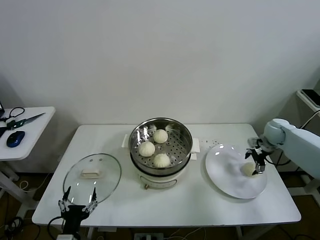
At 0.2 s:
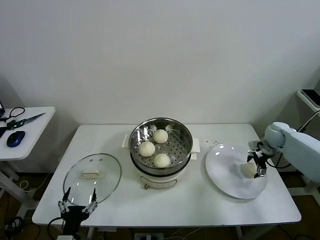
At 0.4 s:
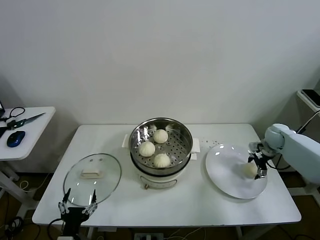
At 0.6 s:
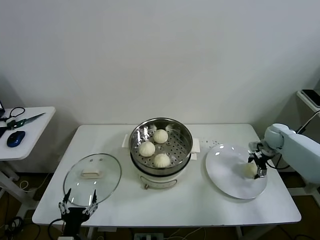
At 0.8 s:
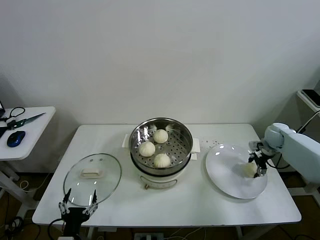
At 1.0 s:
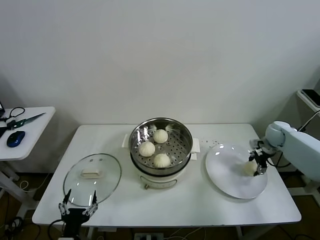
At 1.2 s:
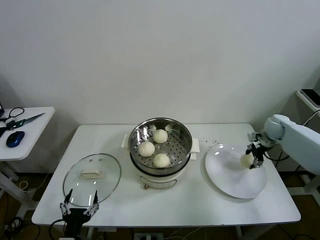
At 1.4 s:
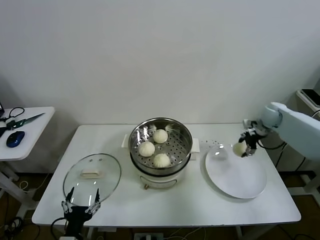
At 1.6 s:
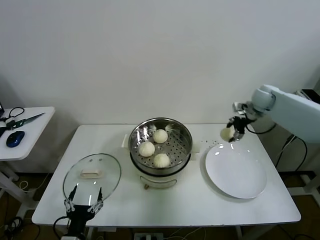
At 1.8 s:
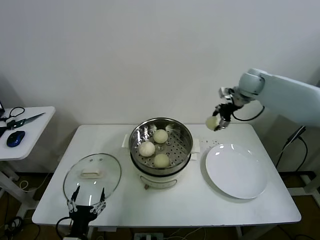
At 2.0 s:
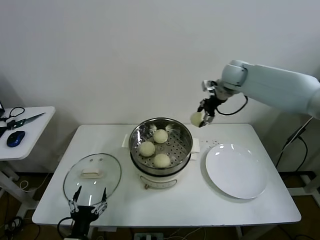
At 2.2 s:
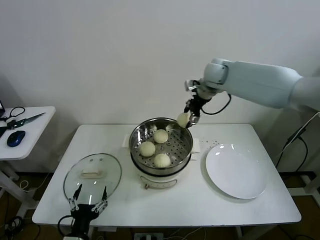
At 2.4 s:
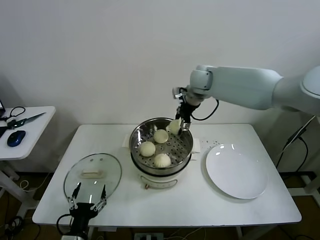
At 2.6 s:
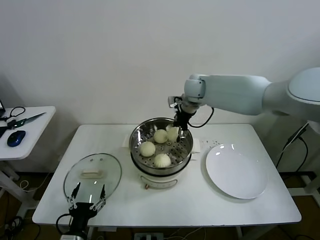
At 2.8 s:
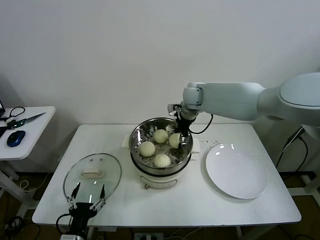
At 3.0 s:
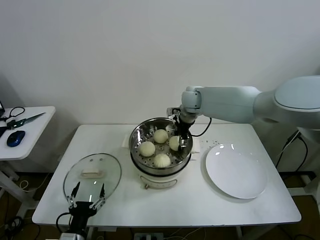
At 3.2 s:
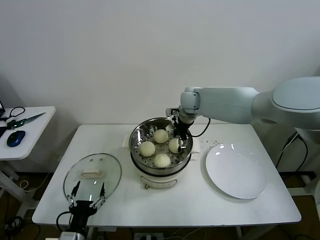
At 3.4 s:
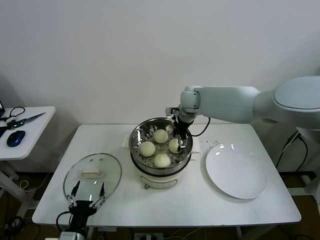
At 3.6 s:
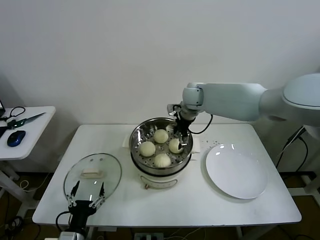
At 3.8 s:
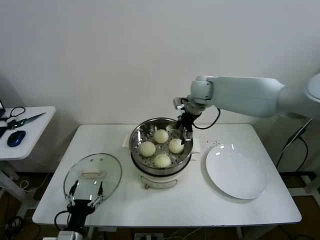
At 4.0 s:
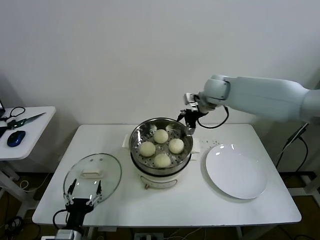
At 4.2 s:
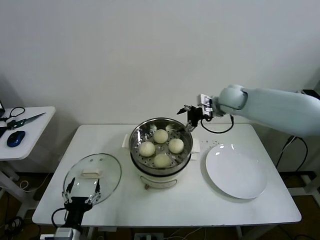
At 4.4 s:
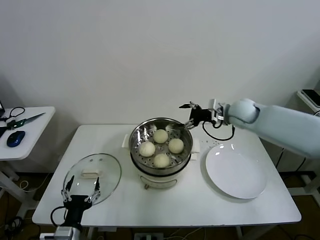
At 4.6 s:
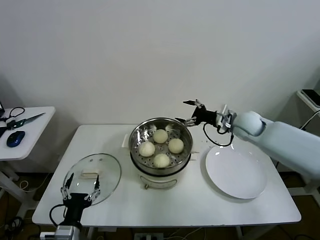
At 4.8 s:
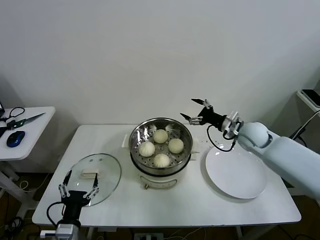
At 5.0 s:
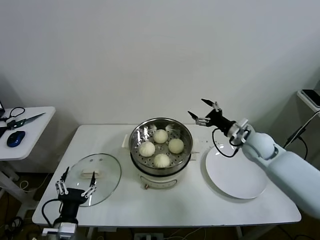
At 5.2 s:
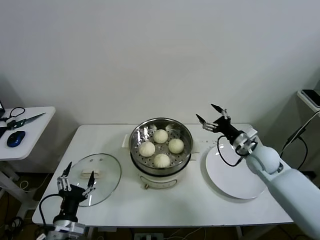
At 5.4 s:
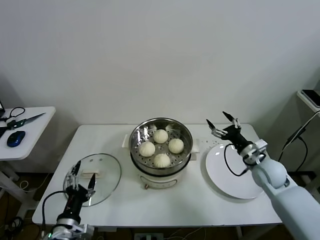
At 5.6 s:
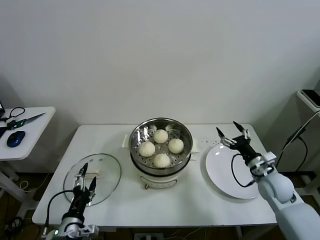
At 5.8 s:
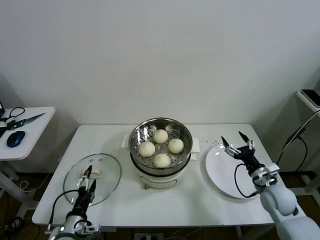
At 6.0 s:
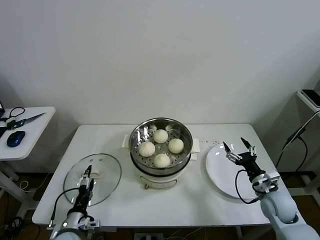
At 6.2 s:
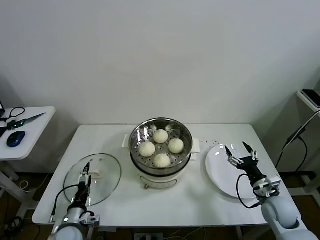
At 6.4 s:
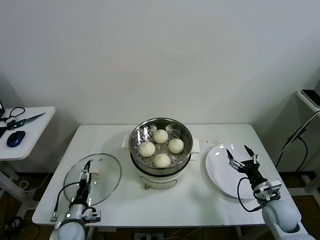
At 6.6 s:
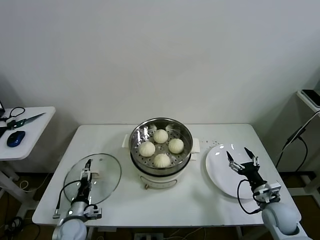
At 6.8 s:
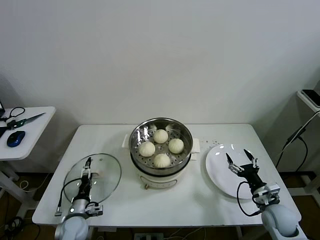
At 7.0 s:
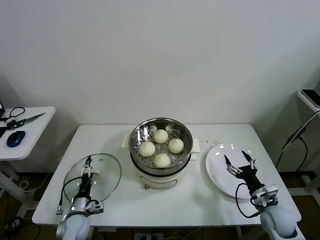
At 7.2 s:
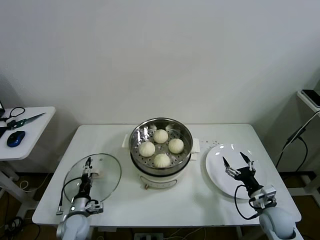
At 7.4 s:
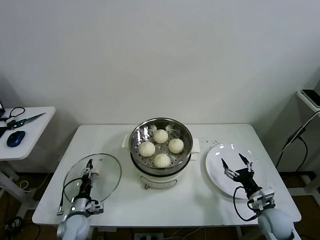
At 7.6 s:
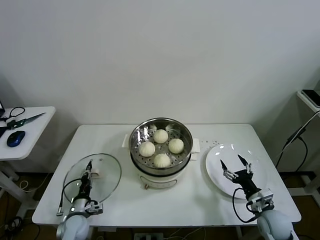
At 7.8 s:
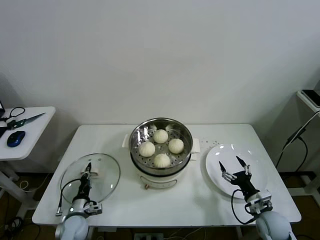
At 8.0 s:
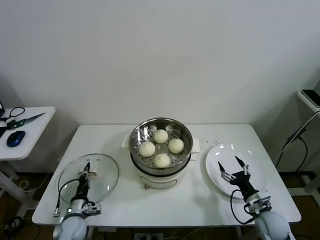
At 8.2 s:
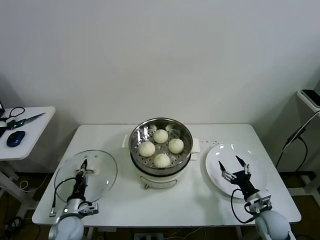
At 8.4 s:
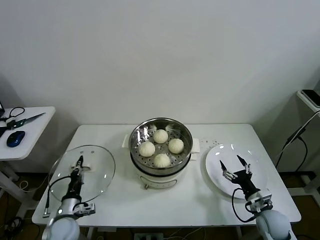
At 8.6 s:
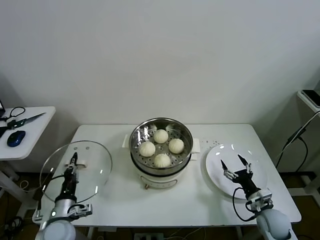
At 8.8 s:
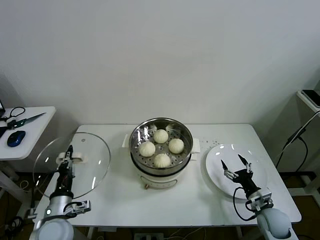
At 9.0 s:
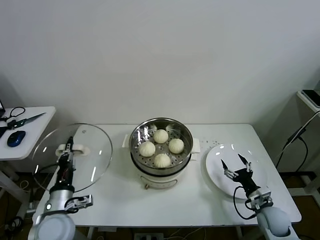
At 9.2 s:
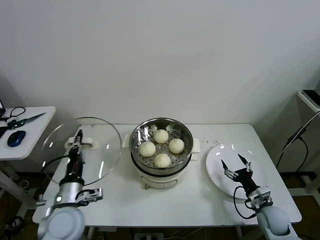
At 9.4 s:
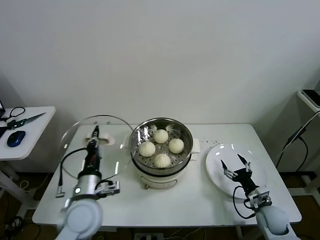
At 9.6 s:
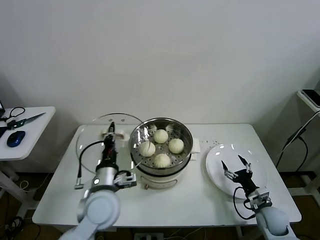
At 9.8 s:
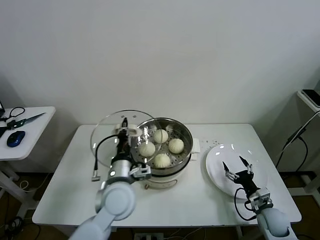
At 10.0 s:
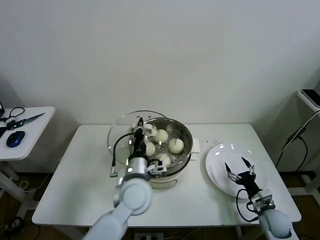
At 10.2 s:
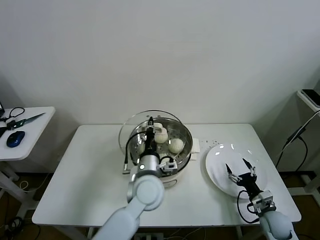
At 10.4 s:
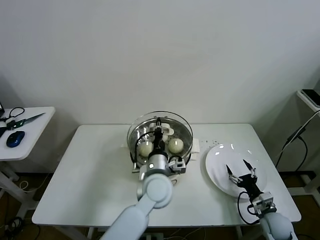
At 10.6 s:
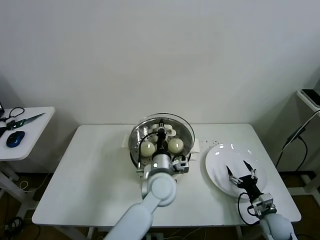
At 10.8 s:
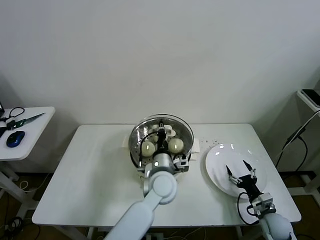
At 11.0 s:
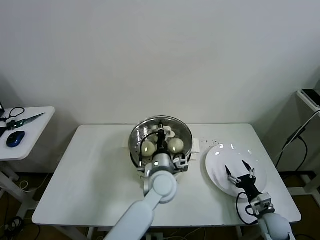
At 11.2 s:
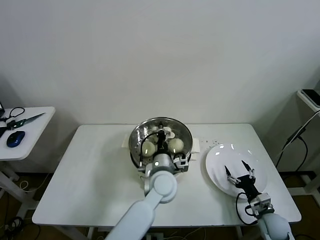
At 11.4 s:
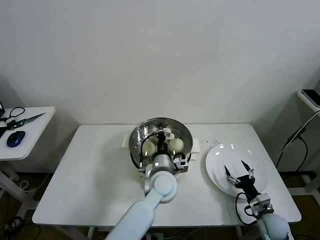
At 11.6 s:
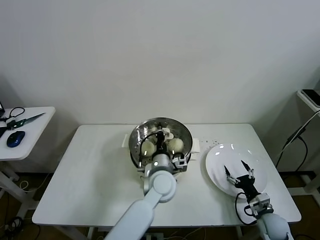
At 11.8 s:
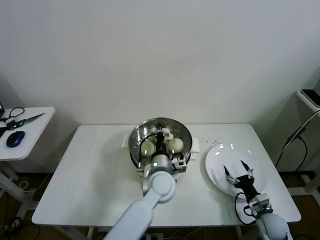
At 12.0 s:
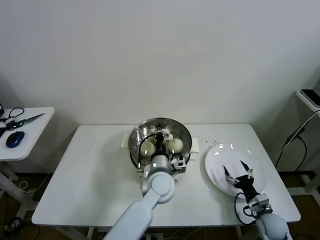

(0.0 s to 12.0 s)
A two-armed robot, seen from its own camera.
Task of the whole recording: take steamed baozi put them in steamer then cover it.
Step, 1.0 s - 3.4 s: Place the baozi on the steamer with right gripper.
Step, 3.6 s - 7.6 s: Grasp the pot lid with left gripper.
0.0 s - 1.6 s: The right gripper shifts roughly 15 cm upward, to the left and forward, and closes up.
1.6 s - 3.0 s: The right gripper heads to the left, covering about 25 cm.
3.0 s - 4.4 s: The right gripper is displaced to the right and backward by approximately 15 cm, and opens up.
4.4 s - 6.0 s: The left gripper shifts approximately 5 cm forward. The right gripper moves backward, downward and to the right, some 35 cm.
6.0 s - 7.6 s: The left gripper shifts roughly 10 cm downward and forward, and closes up. The right gripper goes some 5 cm downward.
7.6 s - 9.0 s: The left gripper is displaced upward by approximately 20 cm.
9.0 s - 10.4 s: The left gripper is displaced to the right by some 25 cm.
10.4 s - 12.0 s: The left gripper shifts by some 5 cm.

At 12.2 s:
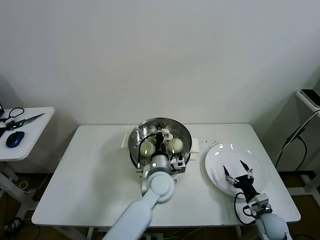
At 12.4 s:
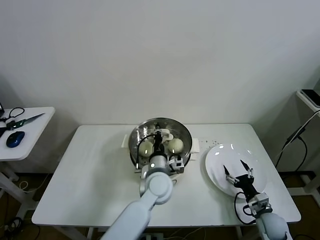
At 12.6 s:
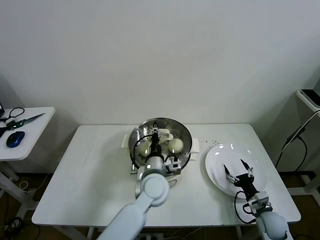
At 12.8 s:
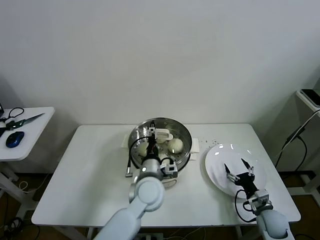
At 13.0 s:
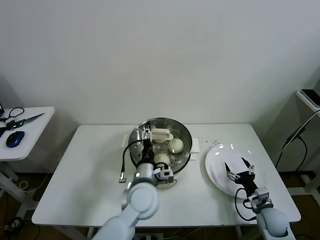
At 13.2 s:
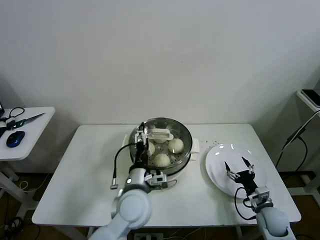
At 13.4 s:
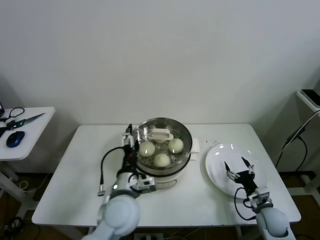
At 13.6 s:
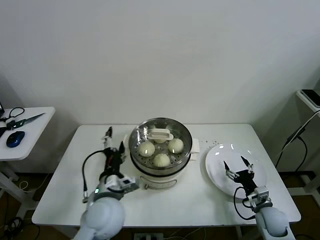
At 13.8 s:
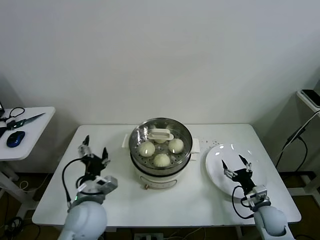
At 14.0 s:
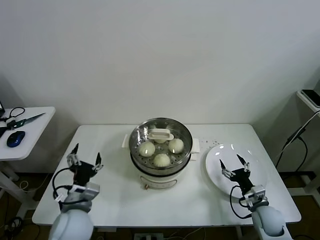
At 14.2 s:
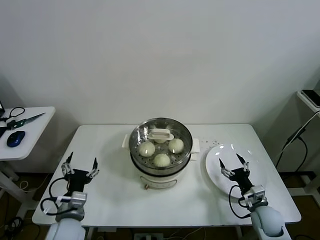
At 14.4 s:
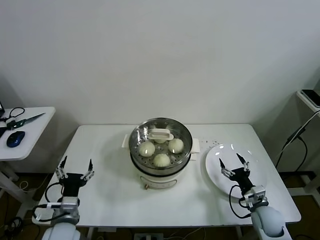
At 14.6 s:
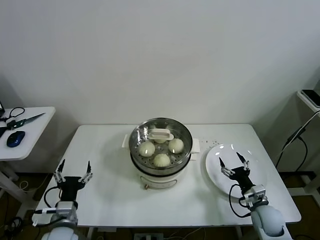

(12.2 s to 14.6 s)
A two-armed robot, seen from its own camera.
Task of the whole recording: take steamed baozi put them in steamer then cover it.
12.2 s - 13.4 s: The left gripper is displaced to the left and backward by approximately 10 cm, and opens its fingers.
13.4 s - 14.6 s: The left gripper moves to the left and downward, approximately 20 cm.

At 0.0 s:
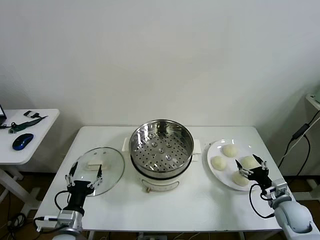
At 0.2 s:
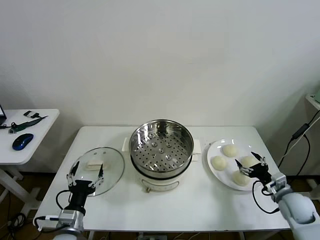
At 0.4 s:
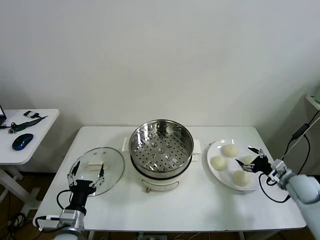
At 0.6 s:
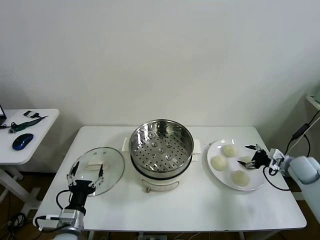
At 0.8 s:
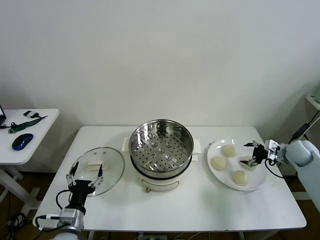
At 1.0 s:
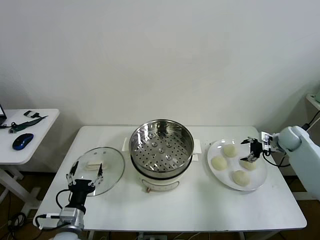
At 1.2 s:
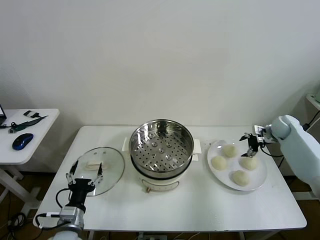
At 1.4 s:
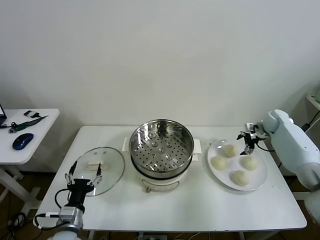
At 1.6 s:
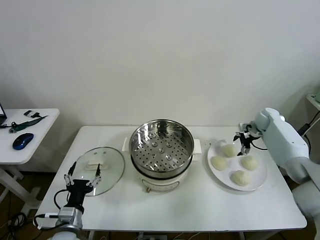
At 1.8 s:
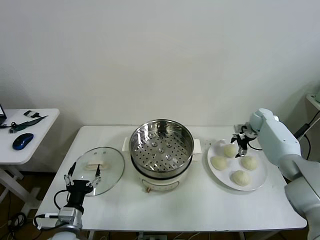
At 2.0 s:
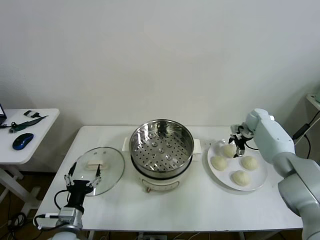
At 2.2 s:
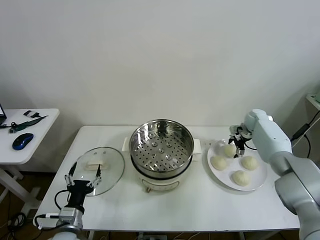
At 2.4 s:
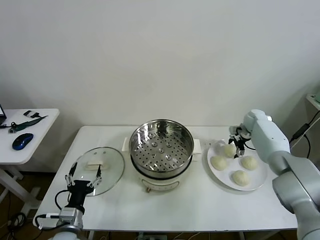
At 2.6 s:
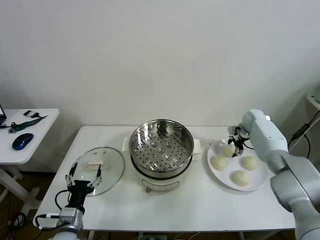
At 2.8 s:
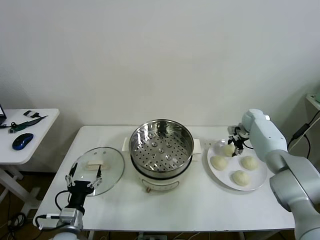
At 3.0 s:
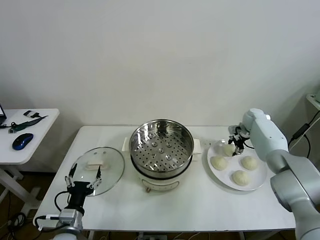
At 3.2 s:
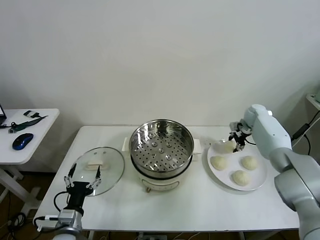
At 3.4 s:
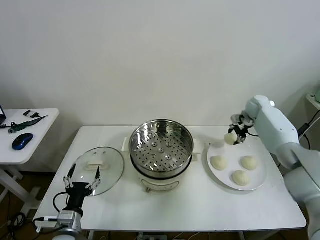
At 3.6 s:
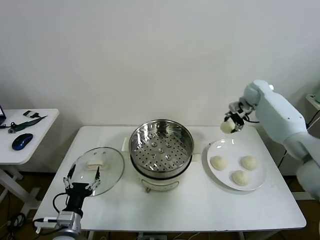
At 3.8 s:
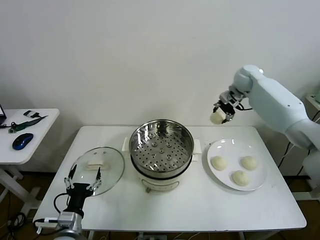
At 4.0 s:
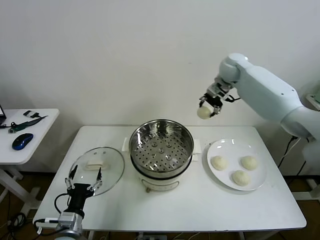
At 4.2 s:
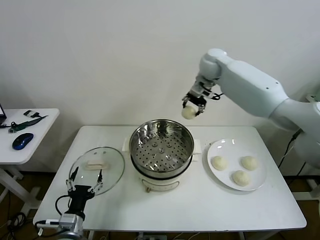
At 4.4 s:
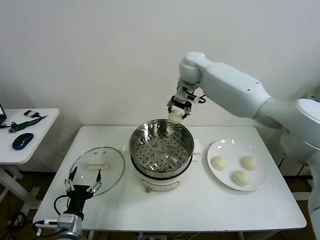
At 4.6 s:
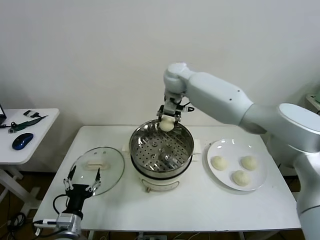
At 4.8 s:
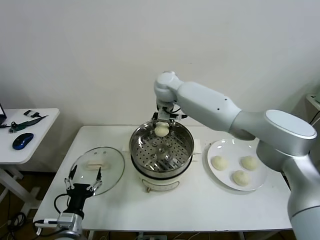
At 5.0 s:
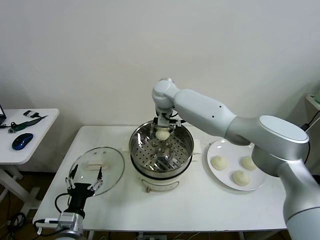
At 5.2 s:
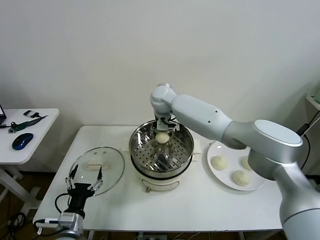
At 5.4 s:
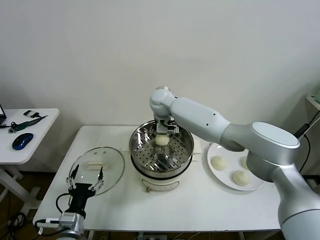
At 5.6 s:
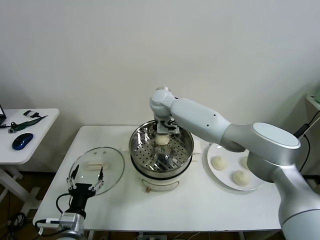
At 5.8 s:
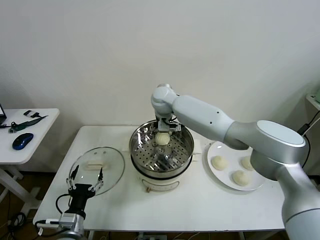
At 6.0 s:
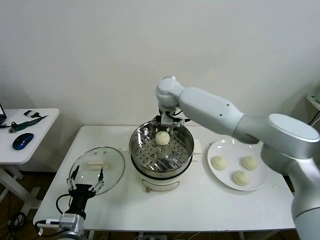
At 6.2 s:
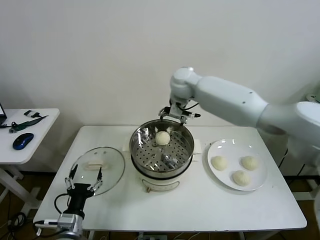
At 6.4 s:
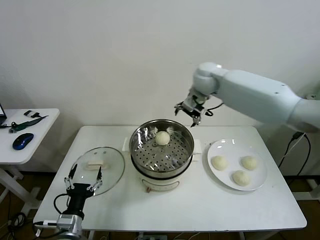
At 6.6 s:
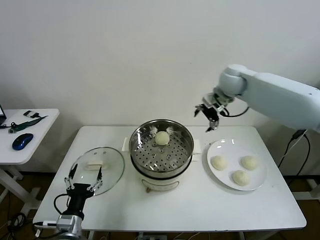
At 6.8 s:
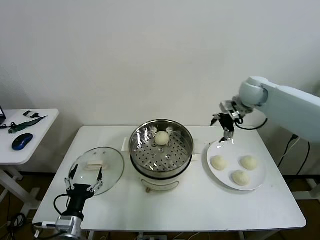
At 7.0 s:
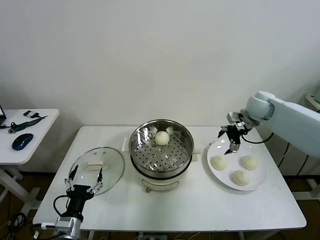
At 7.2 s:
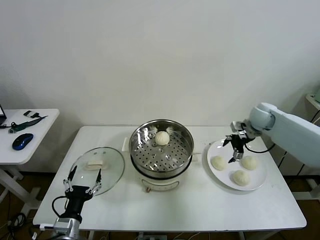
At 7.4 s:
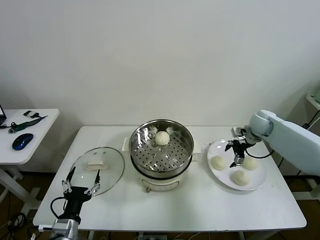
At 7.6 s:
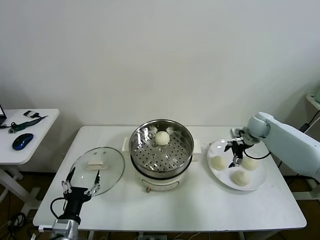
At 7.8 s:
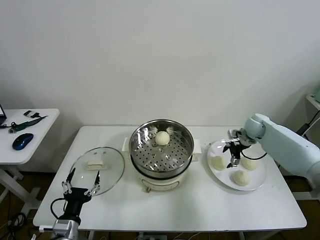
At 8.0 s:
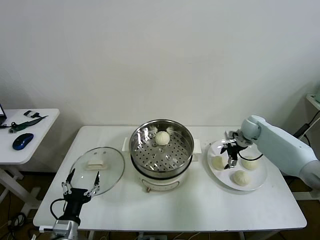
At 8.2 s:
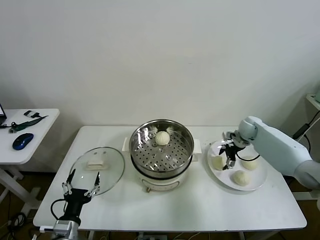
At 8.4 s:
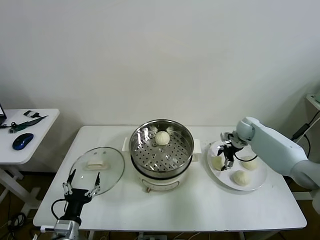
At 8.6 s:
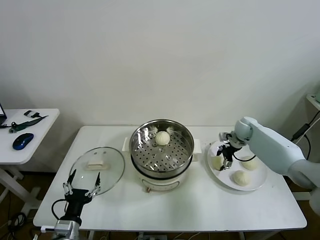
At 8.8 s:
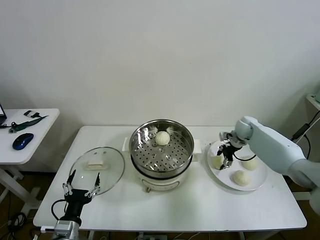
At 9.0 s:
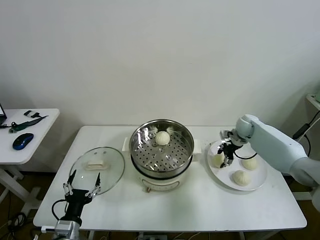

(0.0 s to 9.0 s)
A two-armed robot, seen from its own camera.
Task of the whole recording: take steamed baozi put them in steamer then cover it.
Step, 0.0 s - 2.6 s: Grasp the baozi in the plate with right gripper.
Step, 2.8 s - 5.4 s: Place the baozi on the steamer with right gripper.
Step, 5.6 s - 8.6 s: Grasp the baozi in the plate with right gripper.
1.6 s - 3.0 s: The right gripper closes up.
3.0 s - 4.4 s: The right gripper goes about 40 cm to the left and upward.
4.4 s - 6.0 s: The right gripper opens up.
6.0 s - 7.6 s: The right gripper heads to the right and downward, covering roughly 40 cm.
7.6 s - 9.0 s: The right gripper closes.
